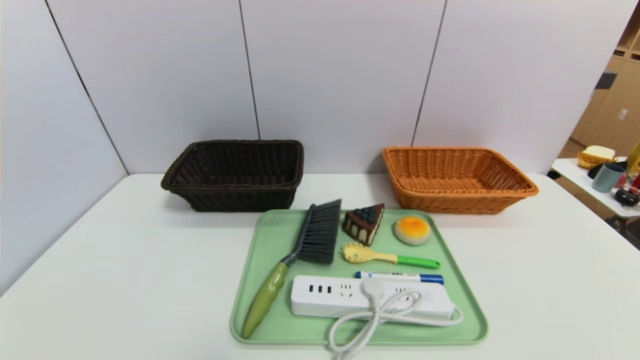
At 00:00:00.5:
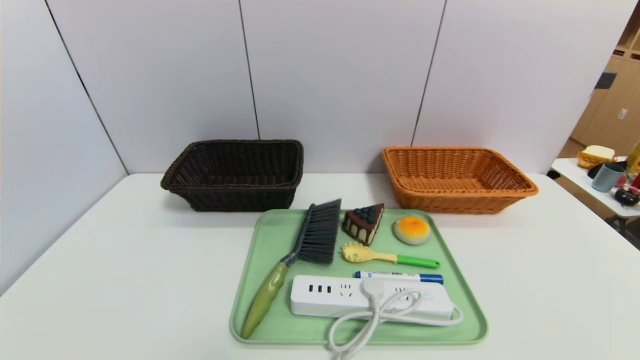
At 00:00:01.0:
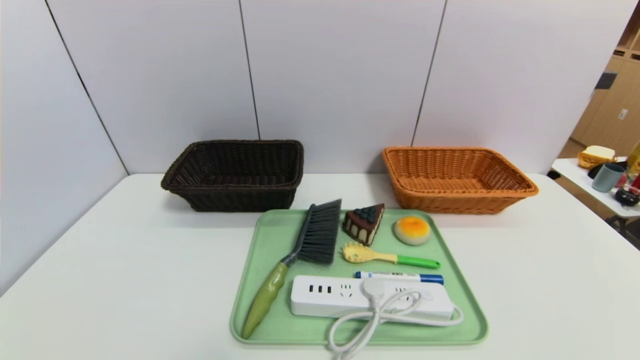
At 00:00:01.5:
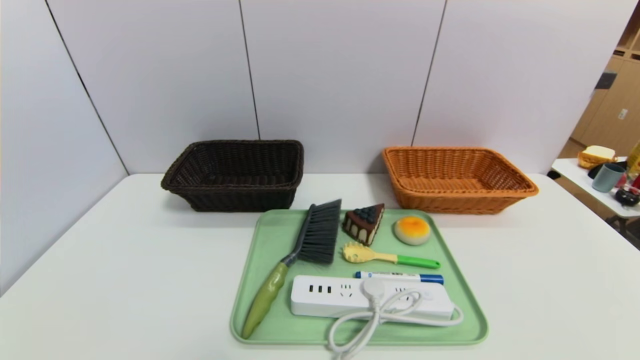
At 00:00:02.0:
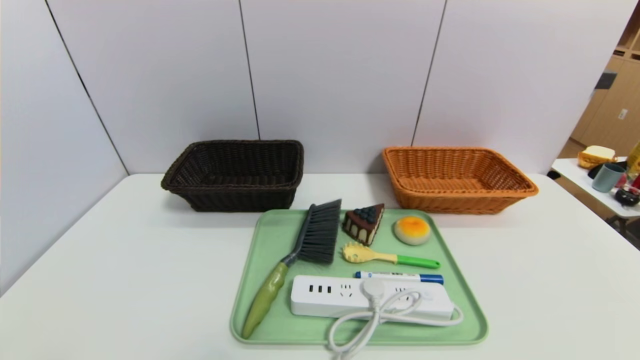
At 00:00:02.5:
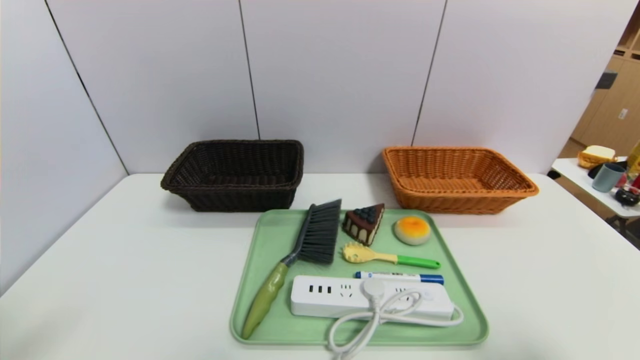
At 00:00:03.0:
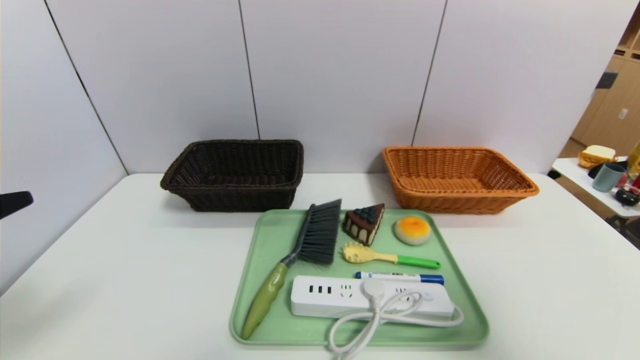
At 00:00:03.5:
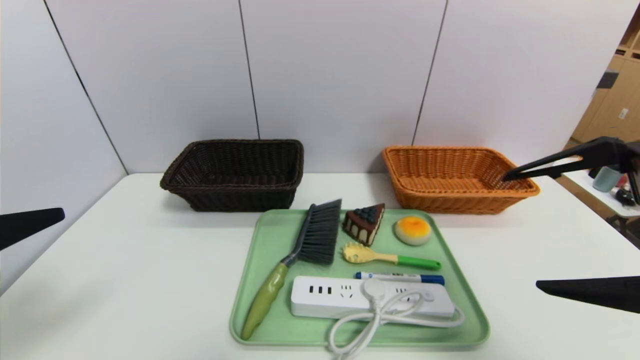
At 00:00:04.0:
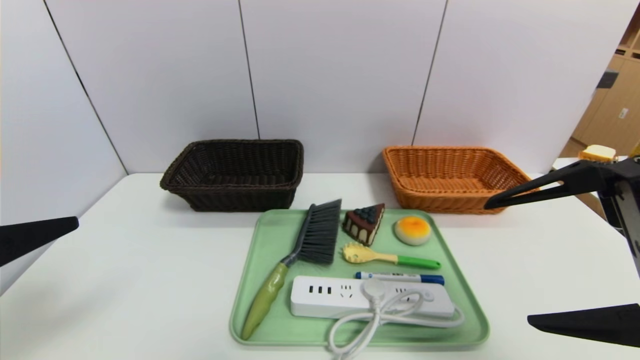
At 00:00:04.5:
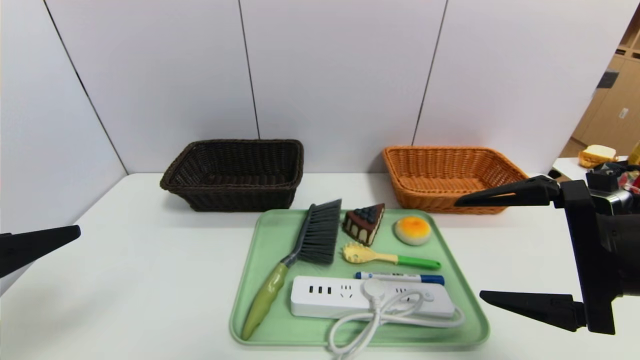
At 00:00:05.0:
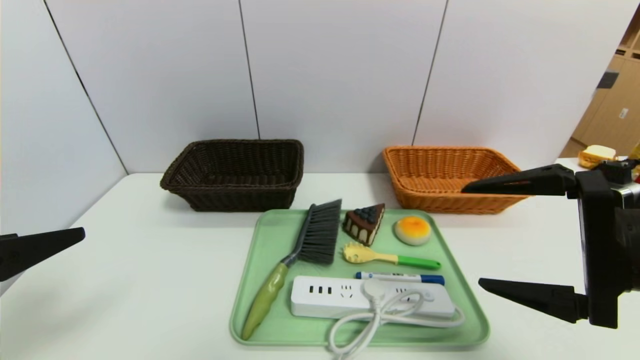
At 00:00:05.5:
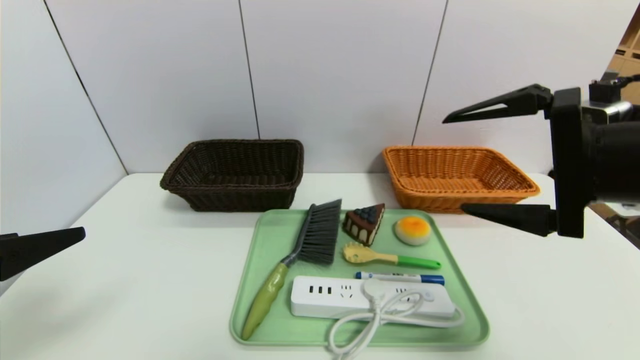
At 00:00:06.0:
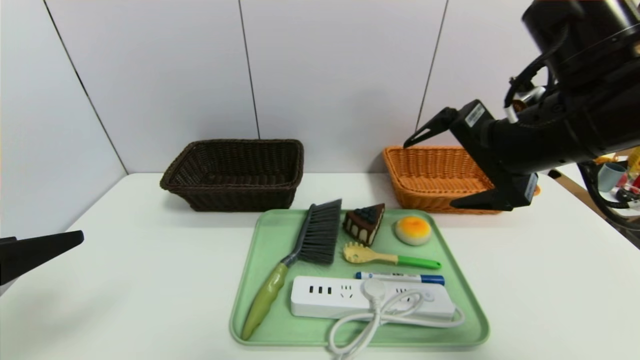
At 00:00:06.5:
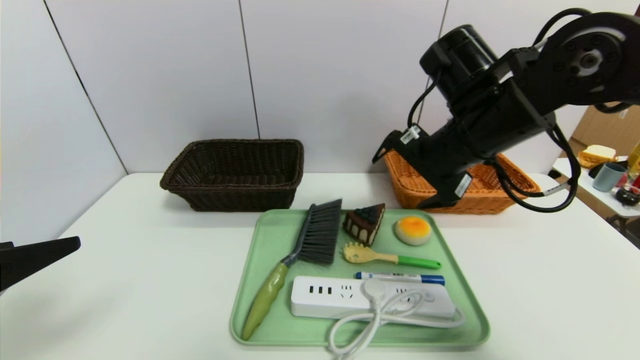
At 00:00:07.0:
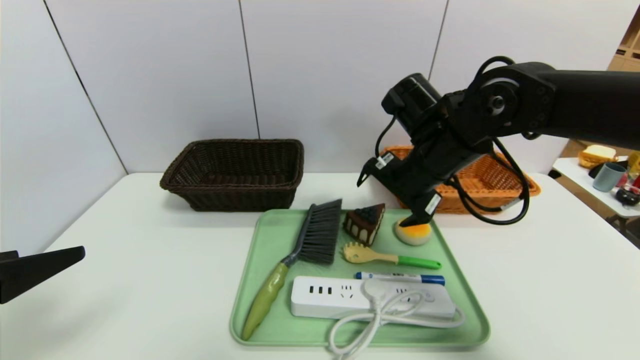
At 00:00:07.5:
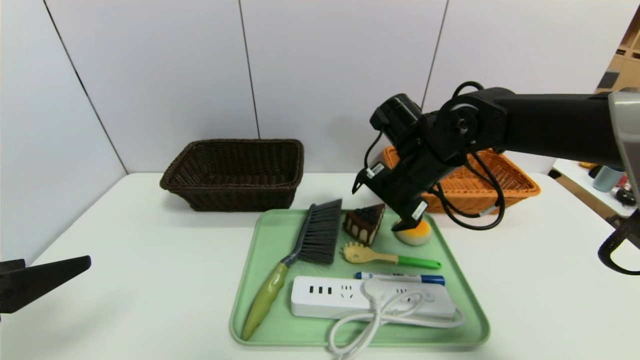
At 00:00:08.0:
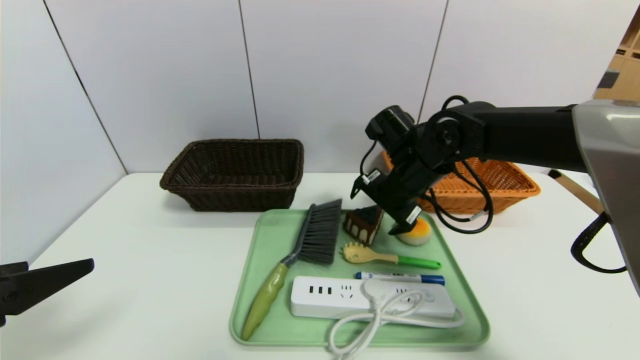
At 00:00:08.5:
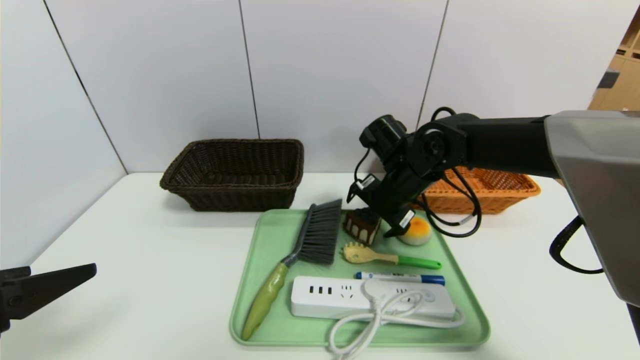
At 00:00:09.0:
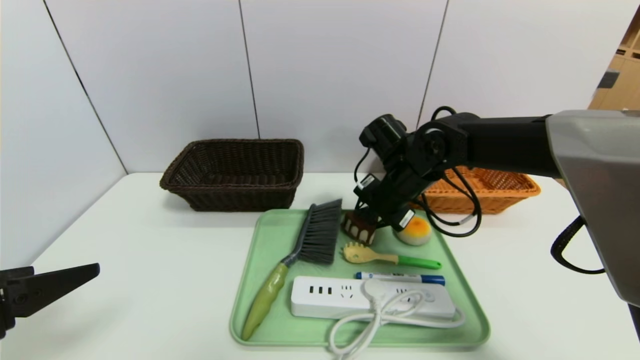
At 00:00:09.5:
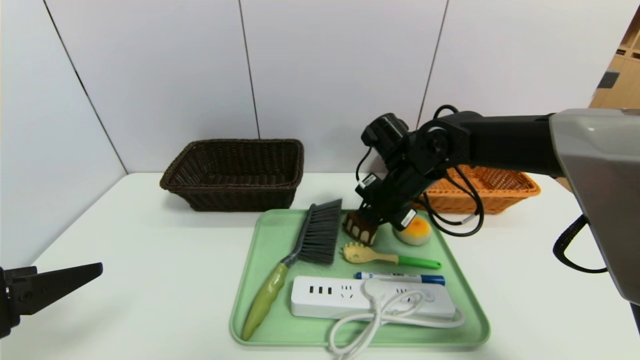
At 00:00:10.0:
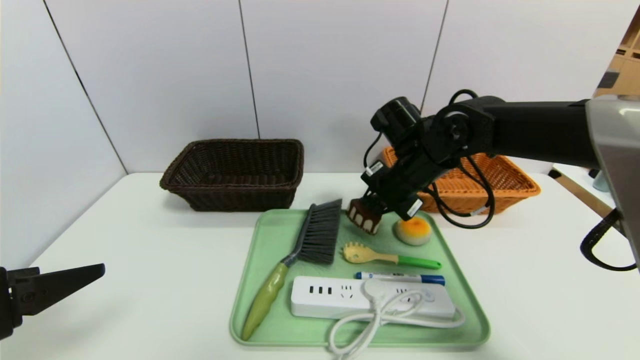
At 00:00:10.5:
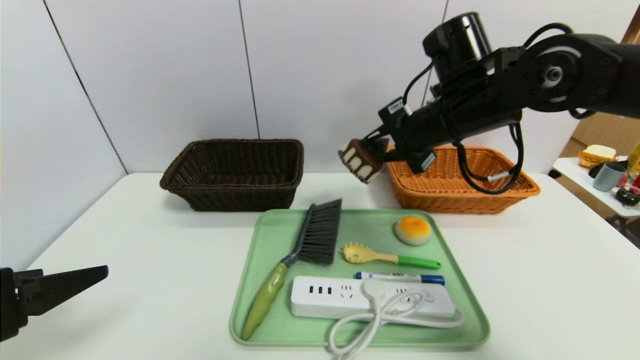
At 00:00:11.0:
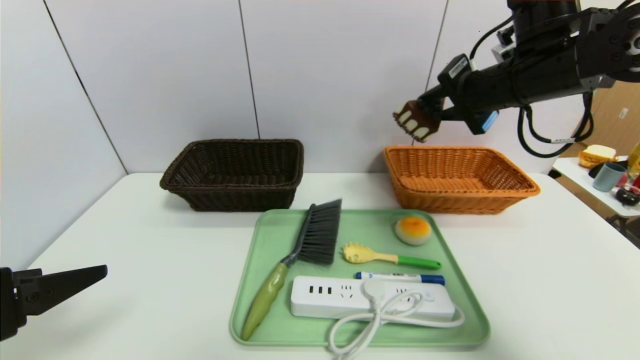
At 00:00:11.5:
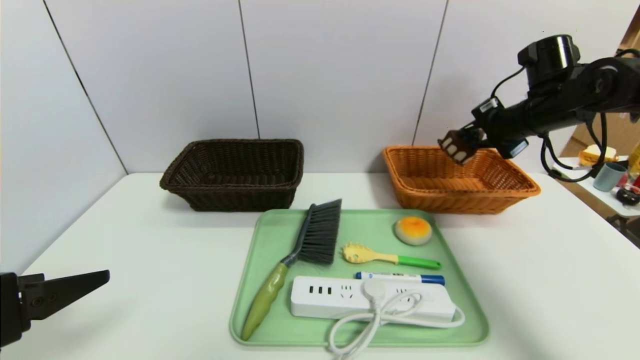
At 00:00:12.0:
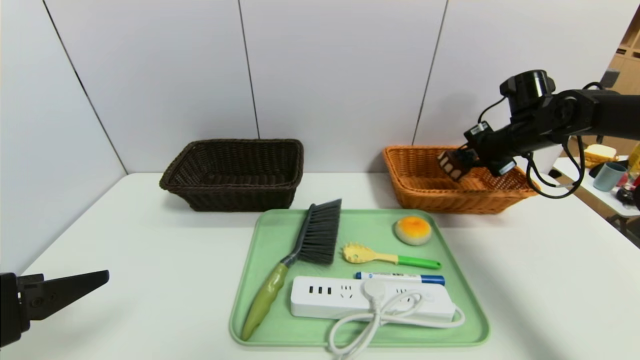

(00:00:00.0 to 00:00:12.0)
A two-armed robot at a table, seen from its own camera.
Task of the whole recording: place the food in the right basket with the right gripper, and place the non food items in the left basket with the left gripper.
00:00:02.0 - 00:00:04.0: The left gripper moves forward, about 10 cm, while the right gripper heads forward, upward and to the left, covering approximately 25 cm.
00:00:04.0 - 00:00:06.0: The right gripper goes roughly 10 cm forward and to the left.
00:00:06.0 - 00:00:08.0: The right gripper travels forward, downward and to the left by about 20 cm.
00:00:08.0 - 00:00:10.0: The right gripper closes.
00:00:10.0 - 00:00:12.0: The right gripper travels to the right by roughly 20 cm.

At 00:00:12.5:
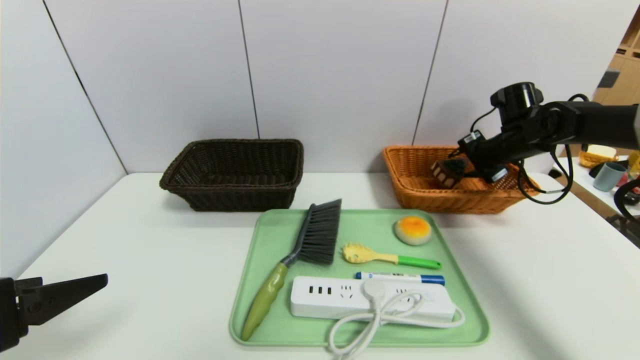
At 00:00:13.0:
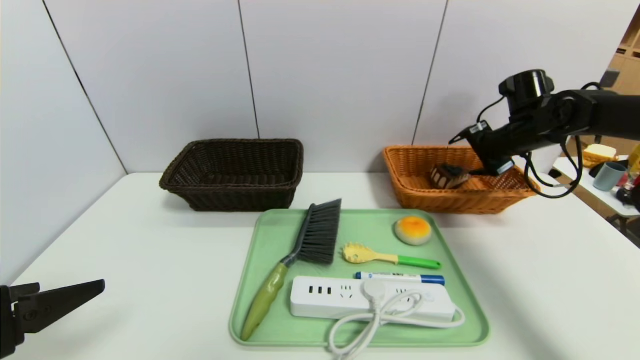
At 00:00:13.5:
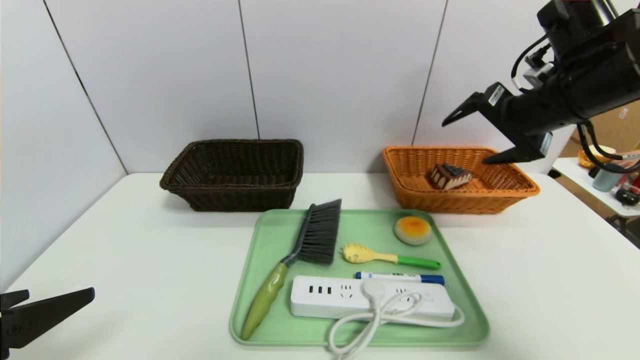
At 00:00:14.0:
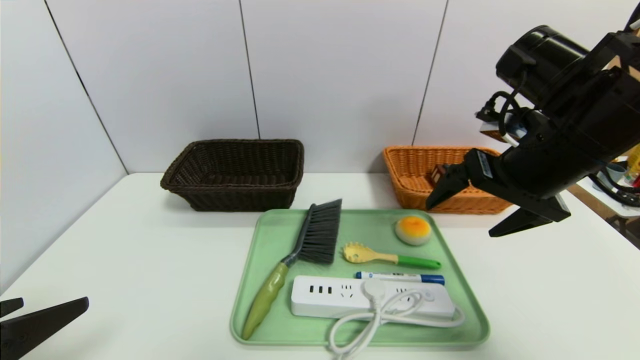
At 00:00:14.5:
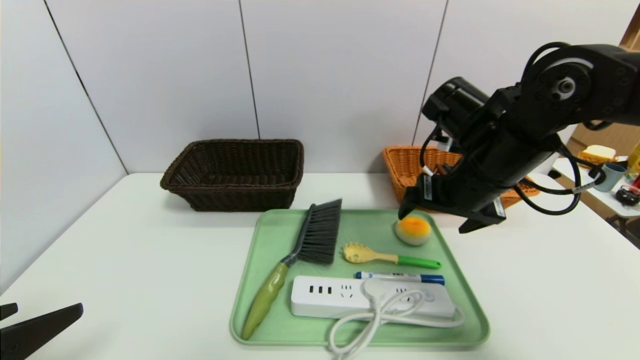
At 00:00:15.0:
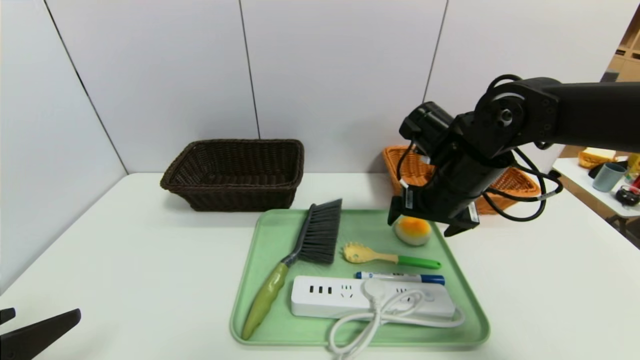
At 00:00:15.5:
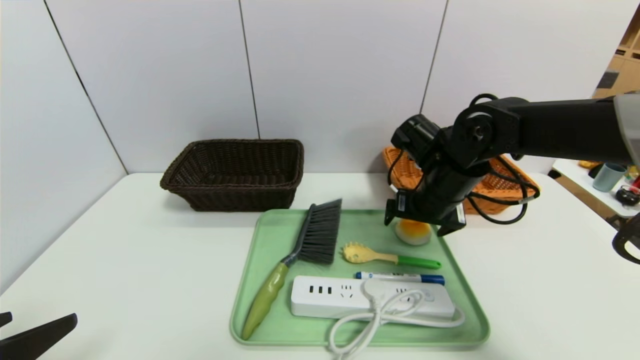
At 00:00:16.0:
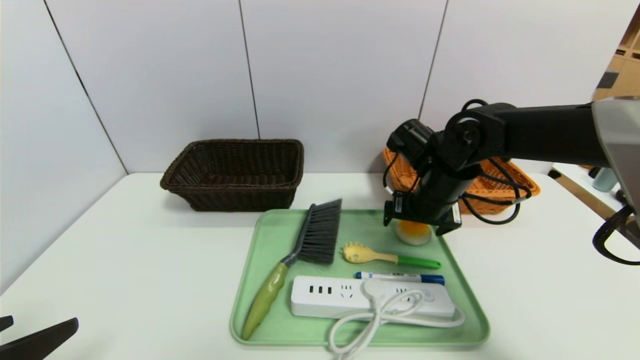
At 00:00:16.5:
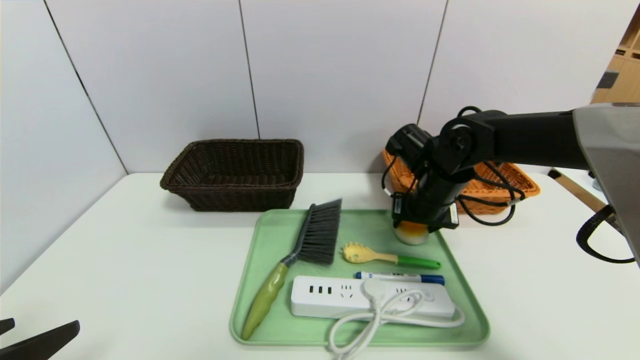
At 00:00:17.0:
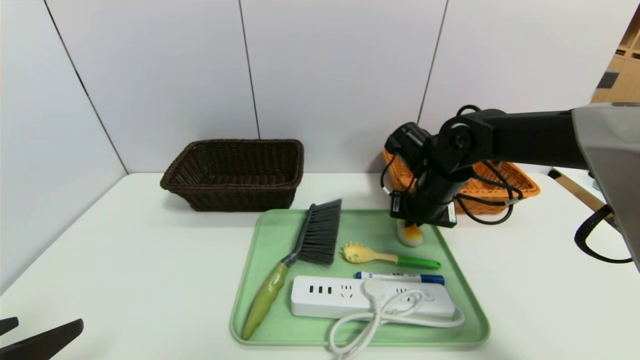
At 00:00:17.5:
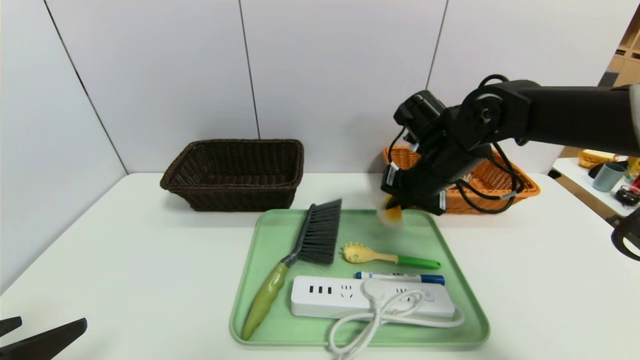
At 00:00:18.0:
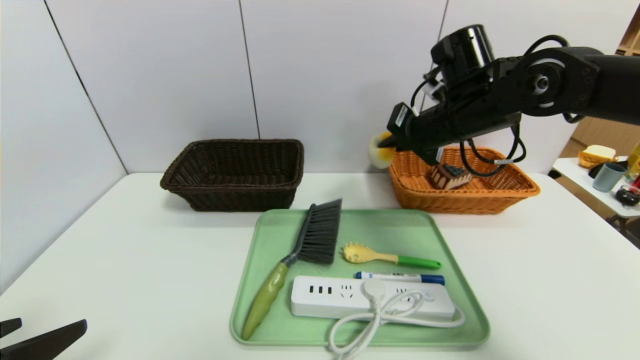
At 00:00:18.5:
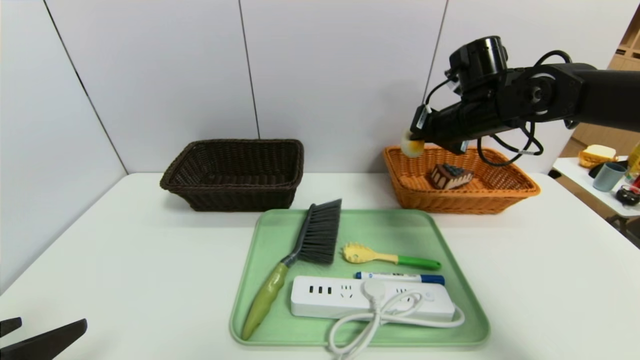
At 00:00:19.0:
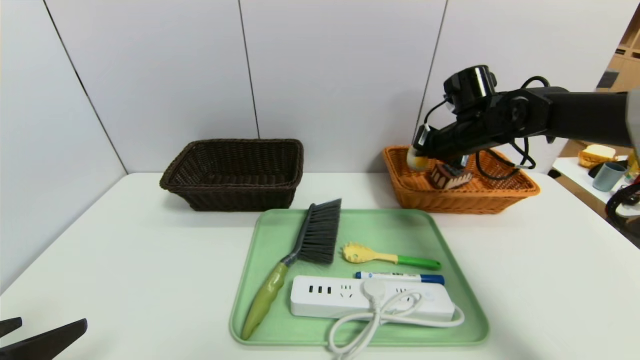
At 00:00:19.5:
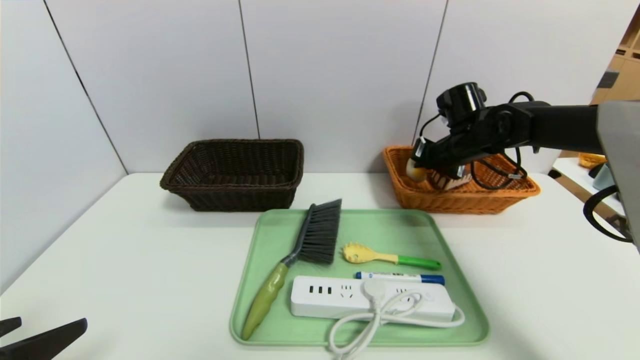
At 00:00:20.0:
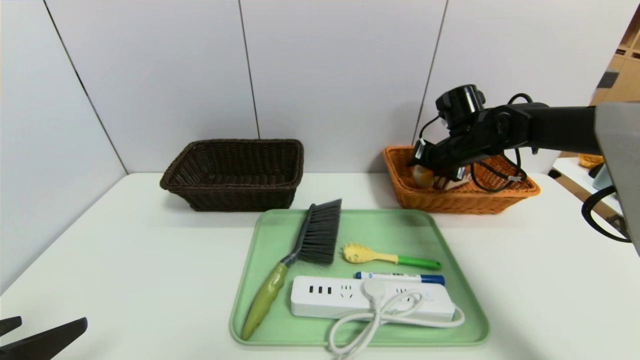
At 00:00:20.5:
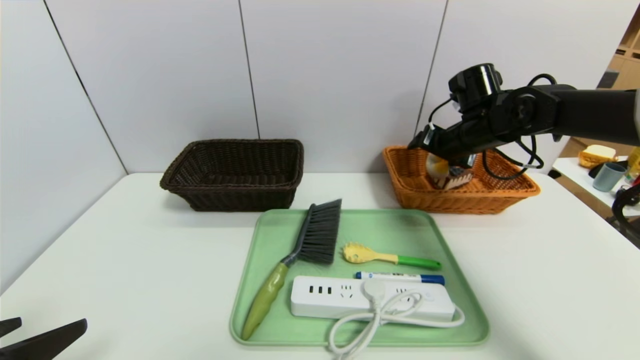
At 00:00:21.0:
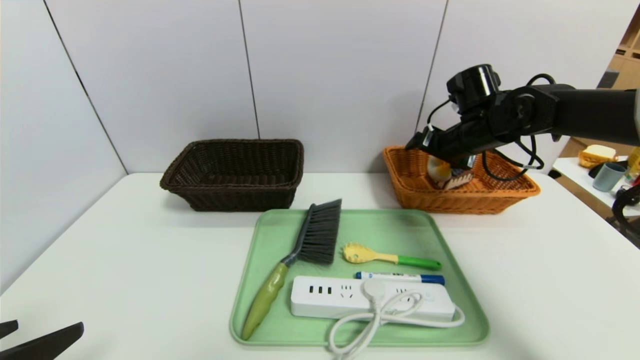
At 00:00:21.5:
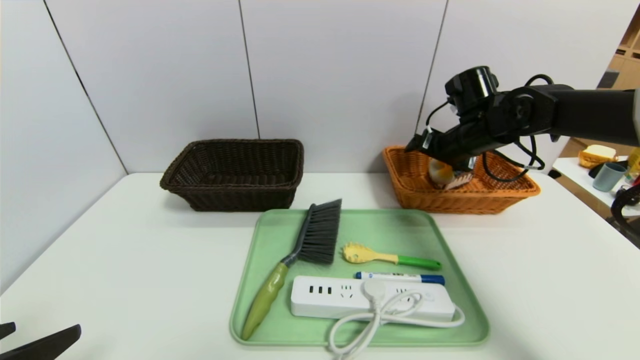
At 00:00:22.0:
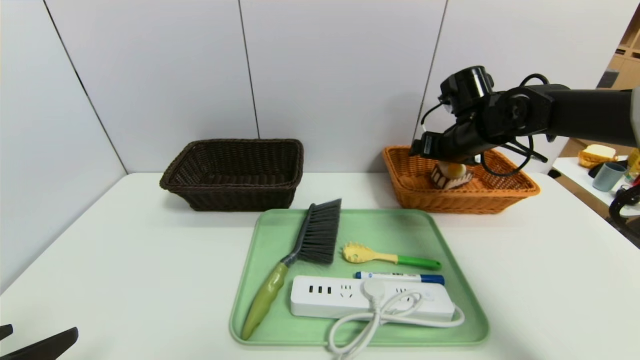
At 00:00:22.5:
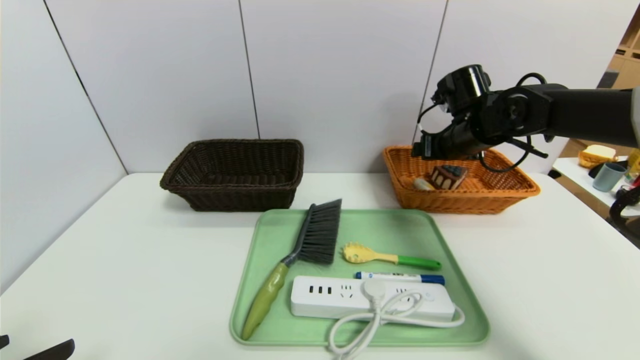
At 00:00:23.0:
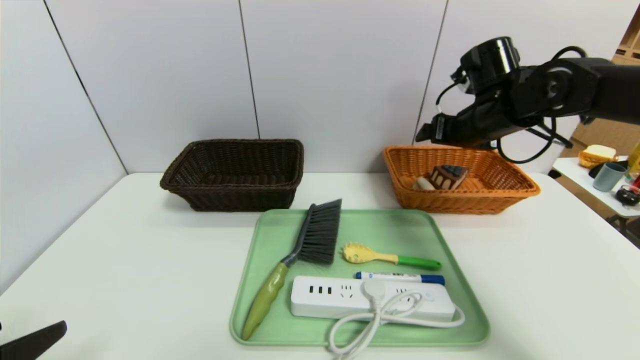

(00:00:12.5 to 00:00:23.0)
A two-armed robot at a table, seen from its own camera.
Task of the whole recording: place the food in the right basket with the right gripper, and place the non food items in the left basket with the left gripper.
Step, 00:00:13.5 - 00:00:22.5: Grasp the round bread and put it in the right basket.
00:00:12.5 - 00:00:14.5: The right gripper travels backward and to the left by about 20 cm, and opens.
00:00:14.5 - 00:00:16.5: The right gripper is displaced downward and forward by some 10 cm, and closes.
00:00:16.5 - 00:00:19.0: The right gripper moves to the right, forward and upward, roughly 10 cm, and closes its fingers.
00:00:19.0 - 00:00:21.0: The right gripper opens up.
